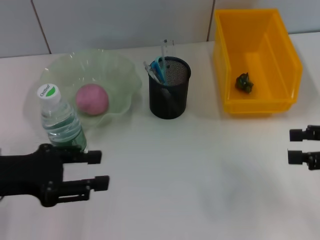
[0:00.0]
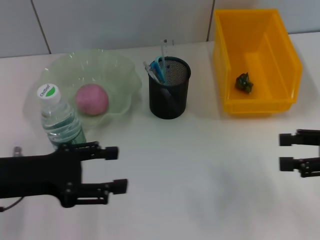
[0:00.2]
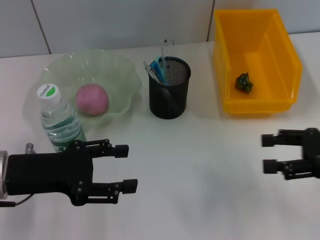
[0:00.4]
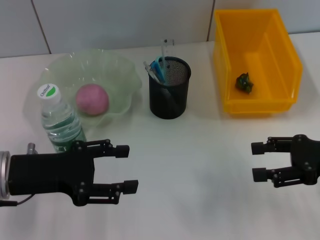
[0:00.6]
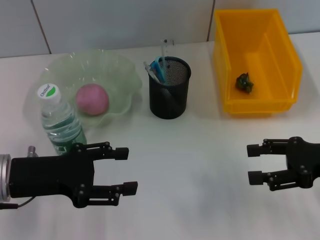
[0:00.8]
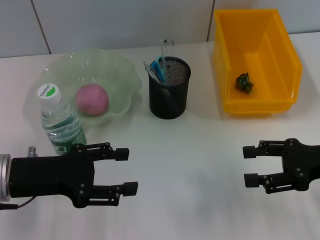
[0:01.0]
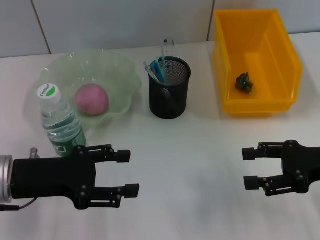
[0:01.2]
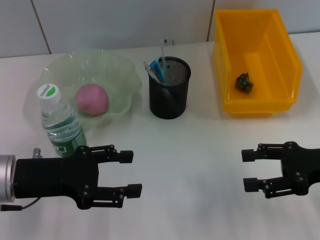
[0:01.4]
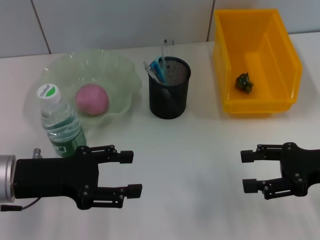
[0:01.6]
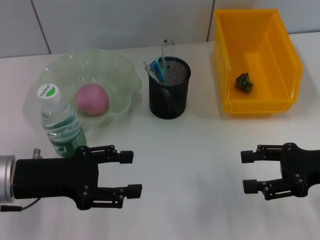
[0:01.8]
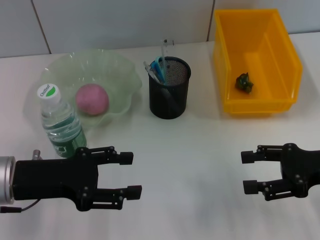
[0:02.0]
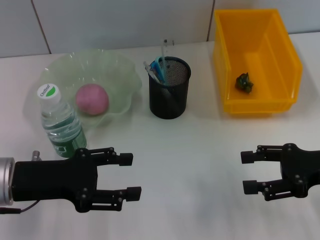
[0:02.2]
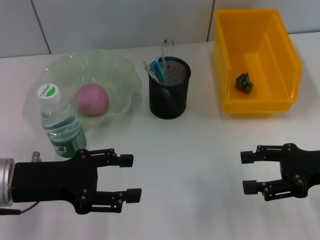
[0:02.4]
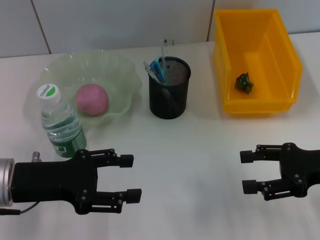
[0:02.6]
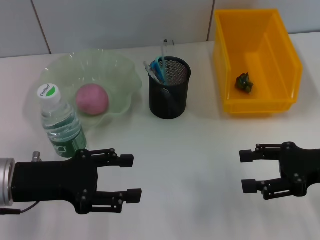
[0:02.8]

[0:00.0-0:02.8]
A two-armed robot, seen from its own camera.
0:00.0 to 0:01.4: The left gripper shifts by some 5 cm, and opens, while the right gripper goes approximately 5 cm to the left.
0:01.4 to 0:02.8: Both grippers stay about where they are.

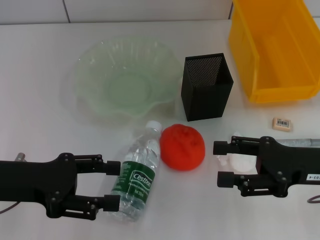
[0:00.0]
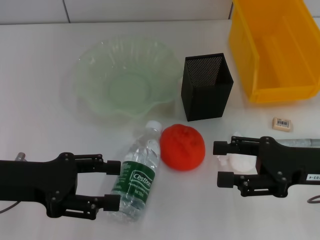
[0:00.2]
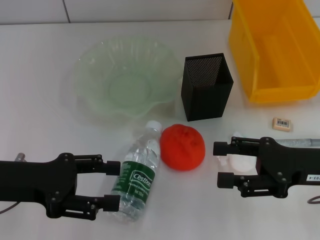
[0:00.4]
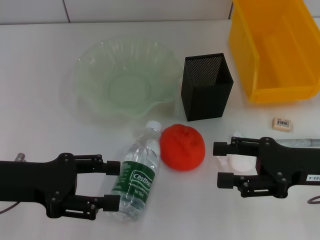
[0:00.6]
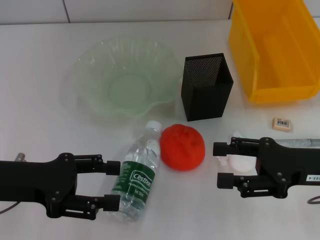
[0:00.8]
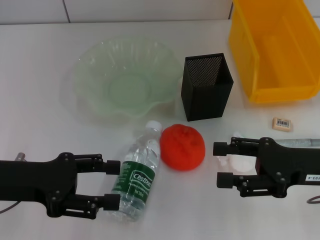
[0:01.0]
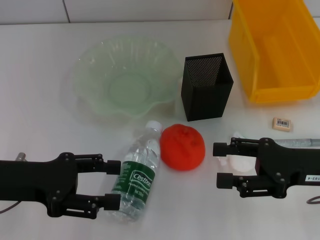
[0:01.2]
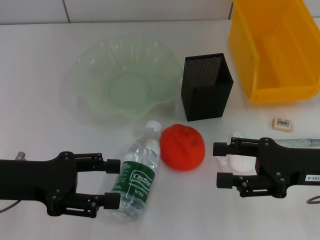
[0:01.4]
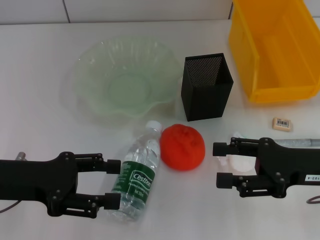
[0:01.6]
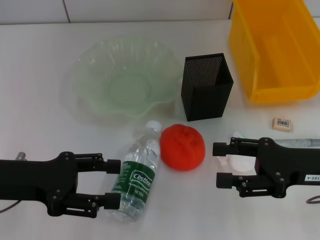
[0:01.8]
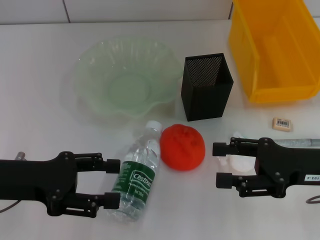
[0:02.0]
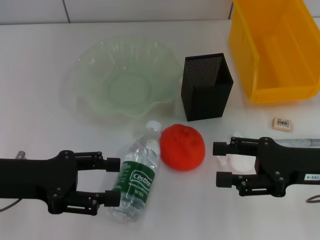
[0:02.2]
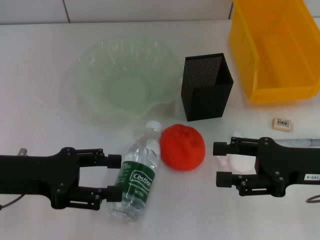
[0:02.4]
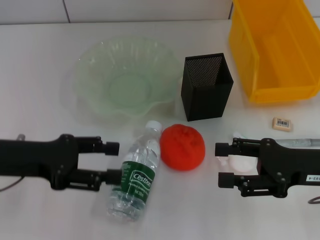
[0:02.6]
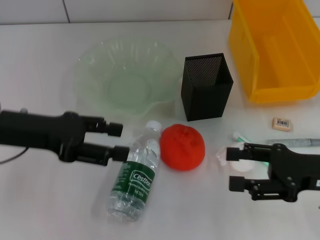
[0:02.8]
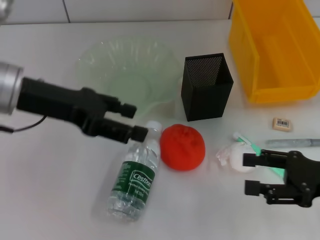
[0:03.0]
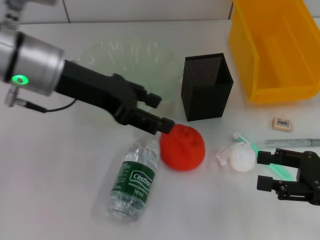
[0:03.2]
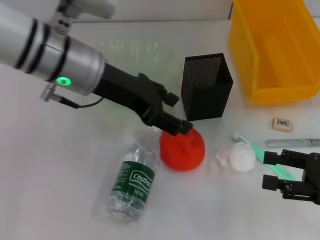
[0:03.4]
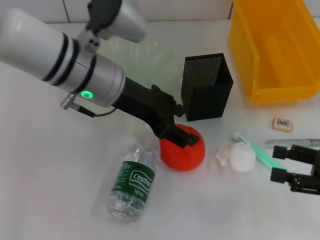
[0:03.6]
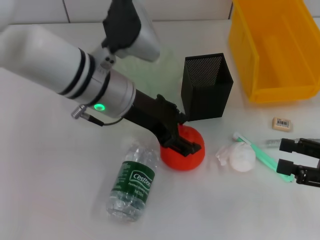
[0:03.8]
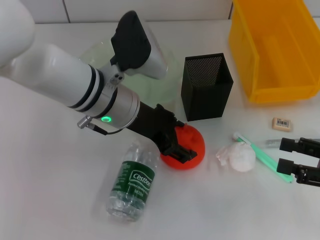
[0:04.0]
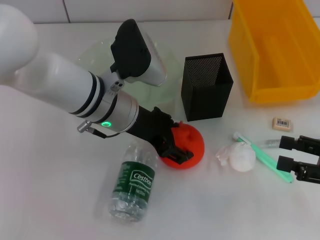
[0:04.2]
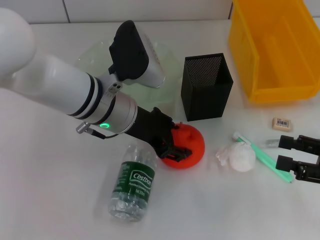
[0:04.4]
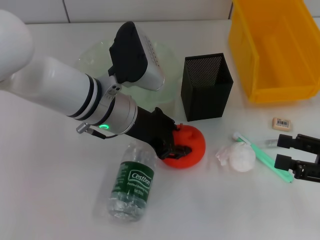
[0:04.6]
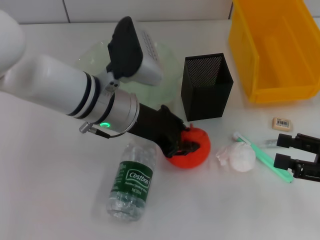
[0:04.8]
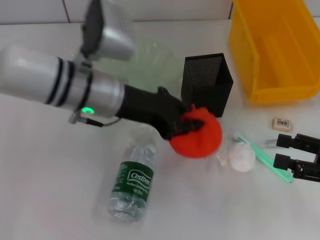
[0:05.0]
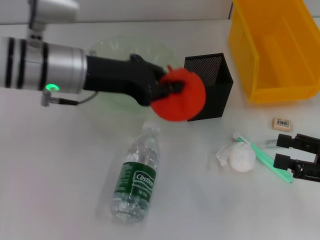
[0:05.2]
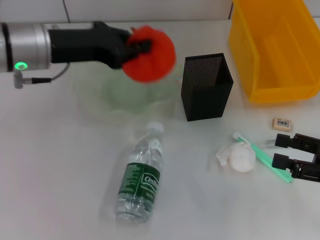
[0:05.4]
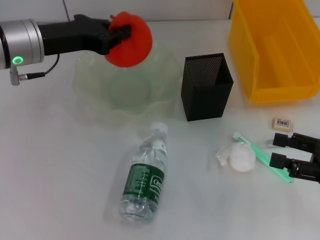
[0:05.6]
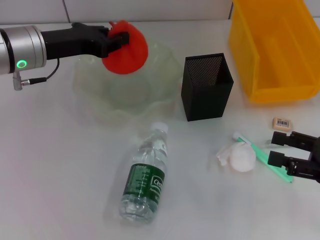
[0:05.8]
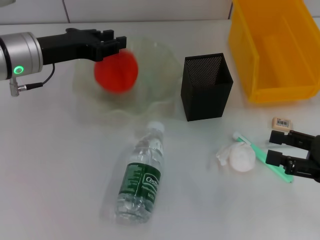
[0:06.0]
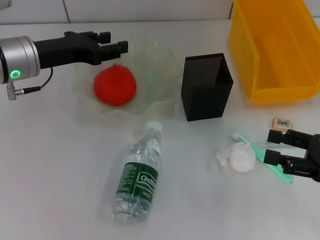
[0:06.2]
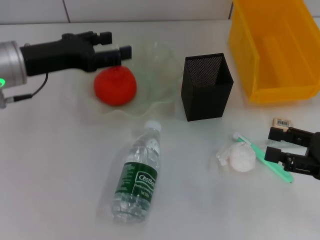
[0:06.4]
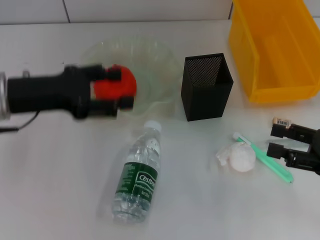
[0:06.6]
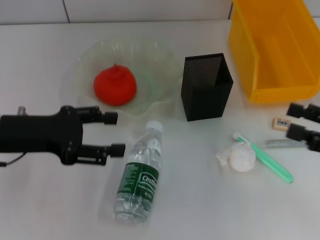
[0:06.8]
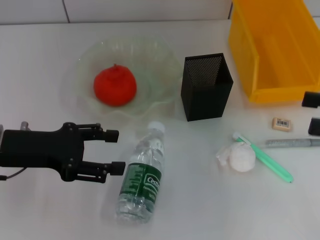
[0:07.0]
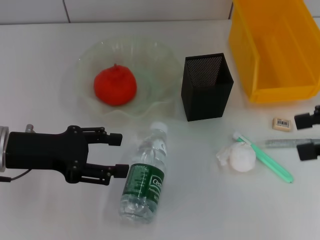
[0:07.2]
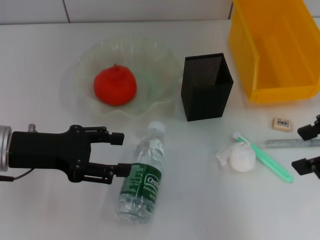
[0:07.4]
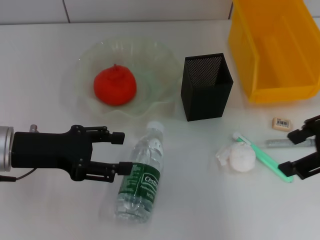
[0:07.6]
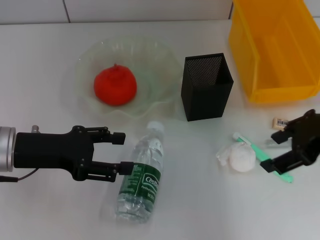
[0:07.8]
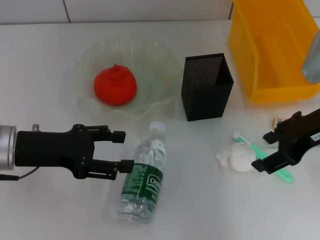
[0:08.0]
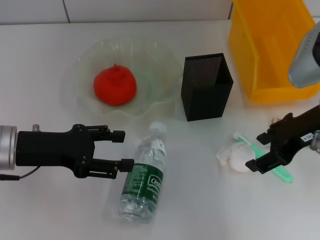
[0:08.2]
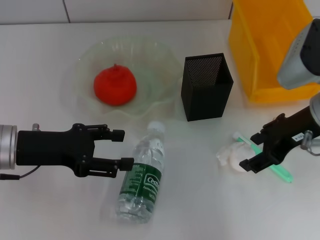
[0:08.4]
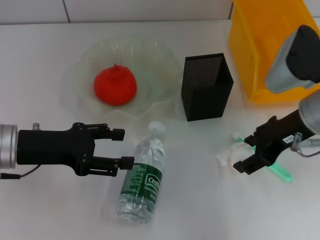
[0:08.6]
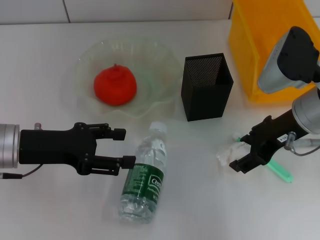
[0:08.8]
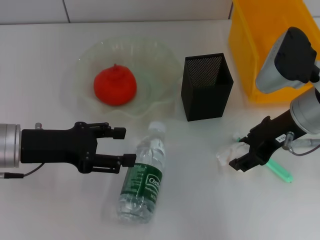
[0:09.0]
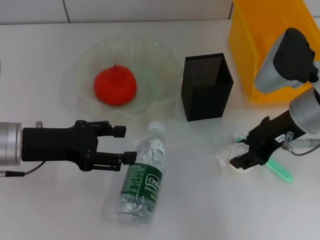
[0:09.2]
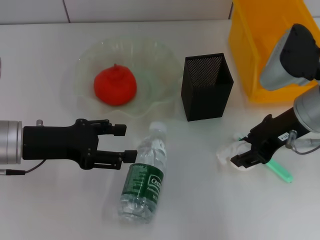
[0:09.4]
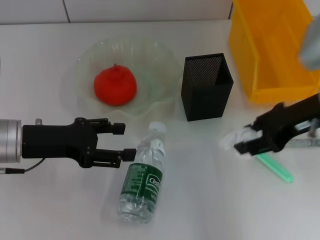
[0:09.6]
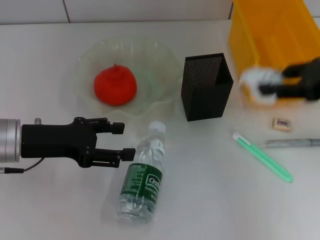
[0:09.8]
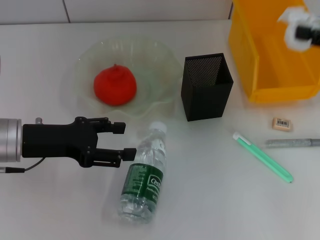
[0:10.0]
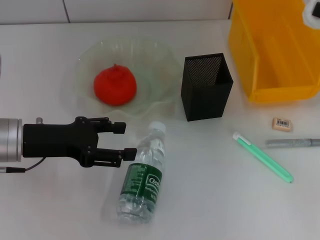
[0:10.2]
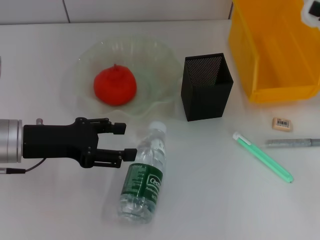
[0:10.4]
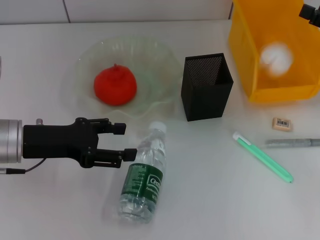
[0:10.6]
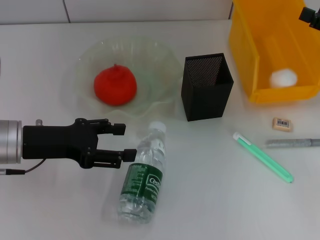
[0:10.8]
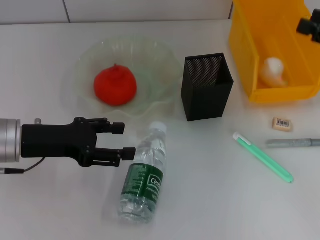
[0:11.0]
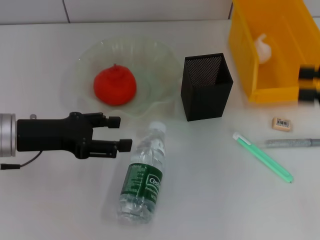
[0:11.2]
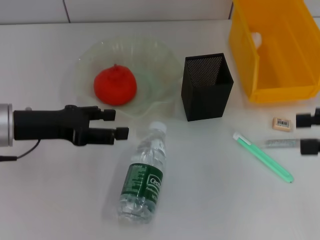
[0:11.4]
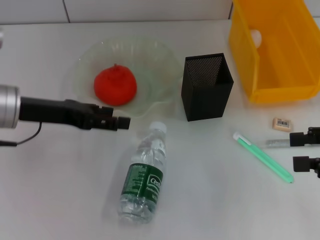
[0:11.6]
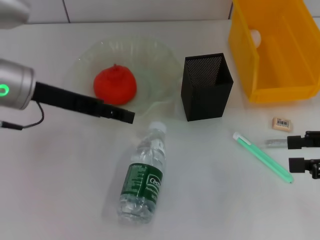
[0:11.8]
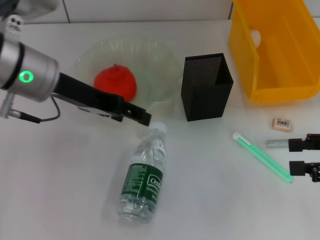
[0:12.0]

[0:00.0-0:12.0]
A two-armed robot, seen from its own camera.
Step, 0:00.0 to 0:04.4: Grab the orange with the left hand.
Step, 0:04.8 to 0:06.2: Place the orange into the fruit bowl with the left hand.
Step, 0:06.4 to 0:09.0: Grab the paper ball with the right hand.
Step, 0:09.2 to 0:10.8: Place the paper ball into the trash can with the right hand.
0:00.0 to 0:01.6: Both grippers stay about where they are.
0:01.6 to 0:03.0: The left gripper travels upward and forward by about 10 cm.
0:03.0 to 0:04.4: The left gripper shifts some 15 cm to the right and downward.
0:04.4 to 0:06.0: The left gripper moves to the left, roughly 15 cm, and closes.
0:06.0 to 0:07.6: The right gripper shifts roughly 20 cm upward and to the left. Meanwhile the left gripper is displaced backward by about 10 cm, and opens its fingers.
0:07.6 to 0:09.0: The right gripper travels downward, to the left and forward by some 15 cm.
0:09.0 to 0:10.4: The right gripper moves to the right, about 15 cm, and closes up.
0:10.4 to 0:12.0: The right gripper heads backward, covering approximately 10 cm. Meanwhile the left gripper heads upward, to the right and forward, covering about 10 cm.

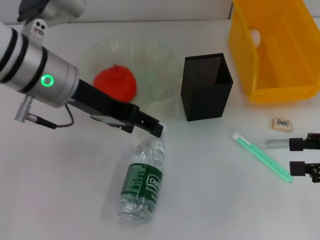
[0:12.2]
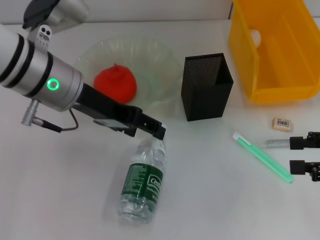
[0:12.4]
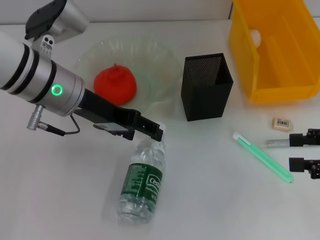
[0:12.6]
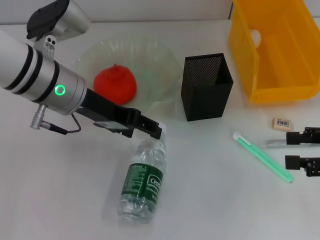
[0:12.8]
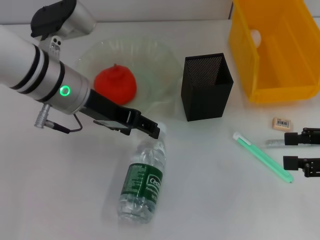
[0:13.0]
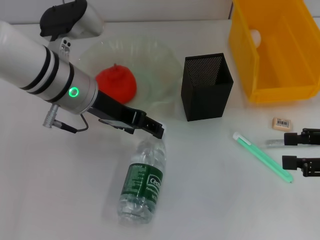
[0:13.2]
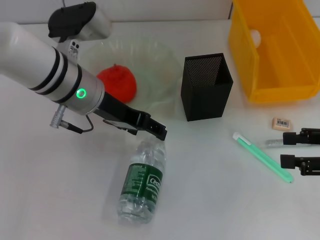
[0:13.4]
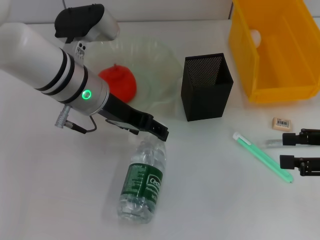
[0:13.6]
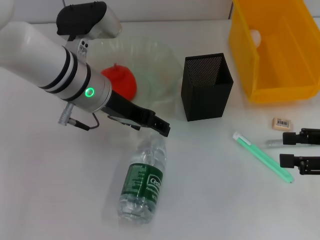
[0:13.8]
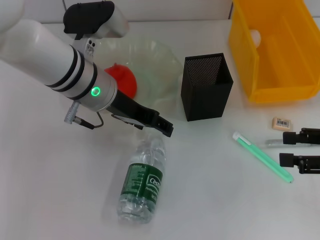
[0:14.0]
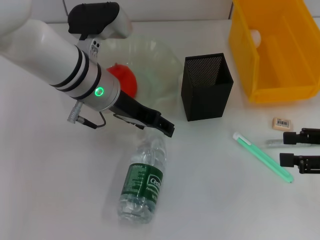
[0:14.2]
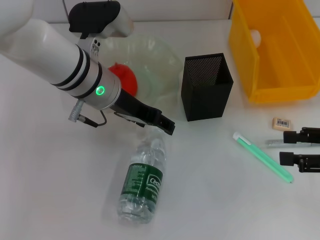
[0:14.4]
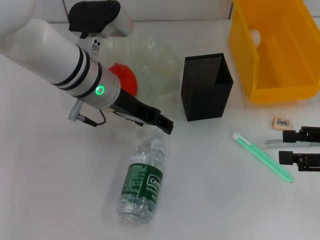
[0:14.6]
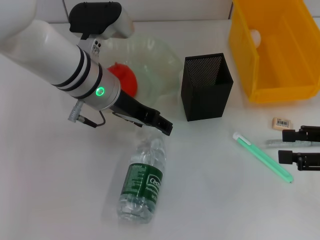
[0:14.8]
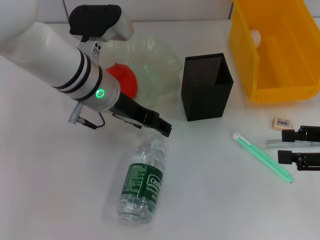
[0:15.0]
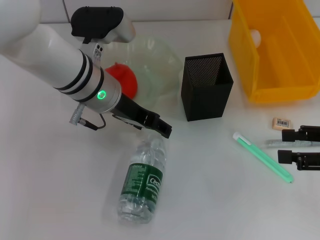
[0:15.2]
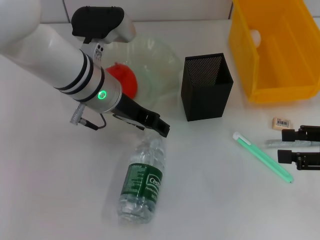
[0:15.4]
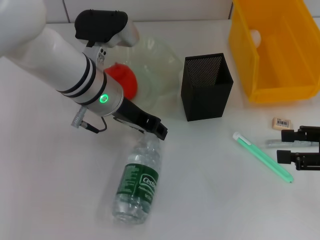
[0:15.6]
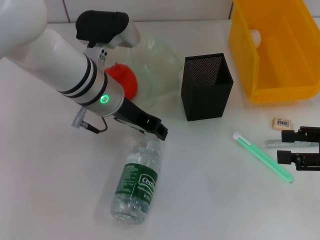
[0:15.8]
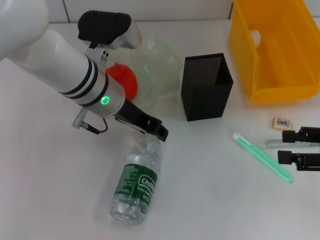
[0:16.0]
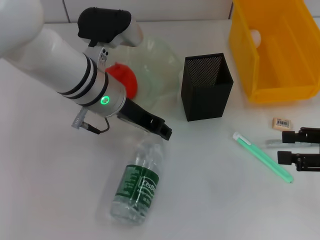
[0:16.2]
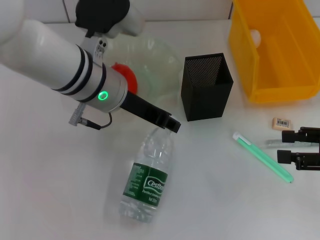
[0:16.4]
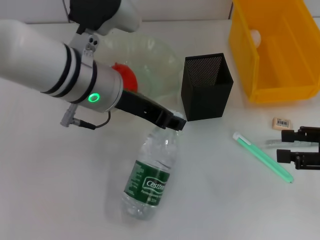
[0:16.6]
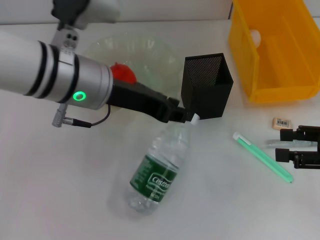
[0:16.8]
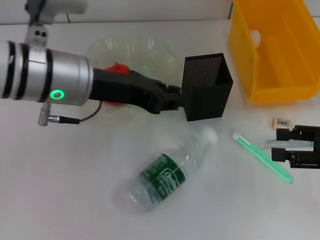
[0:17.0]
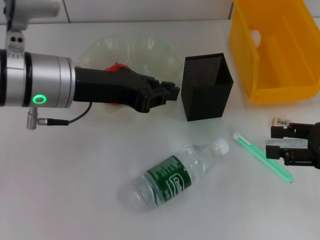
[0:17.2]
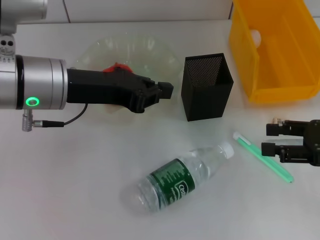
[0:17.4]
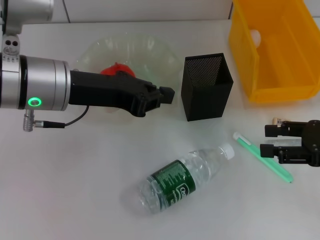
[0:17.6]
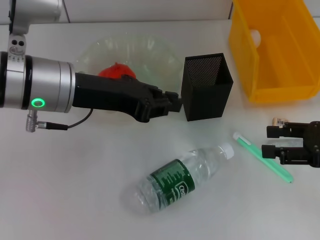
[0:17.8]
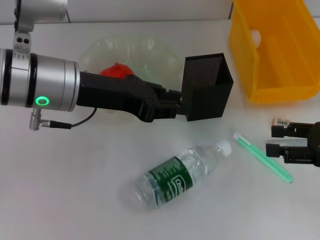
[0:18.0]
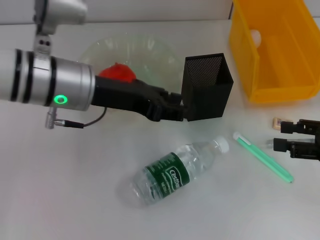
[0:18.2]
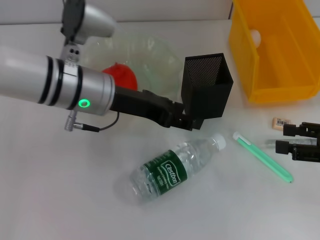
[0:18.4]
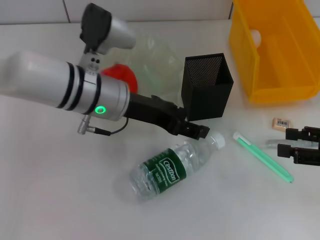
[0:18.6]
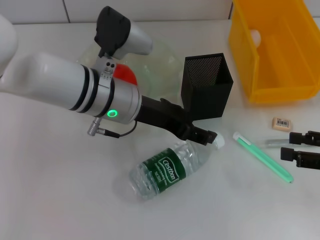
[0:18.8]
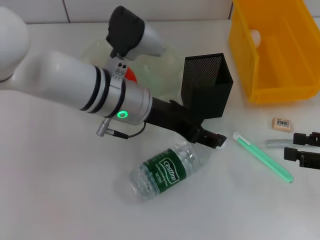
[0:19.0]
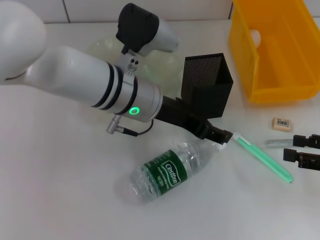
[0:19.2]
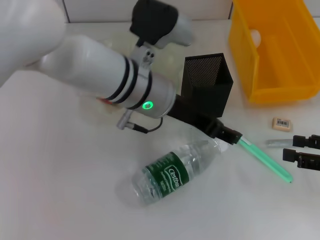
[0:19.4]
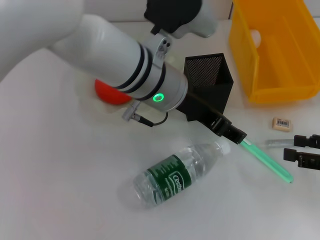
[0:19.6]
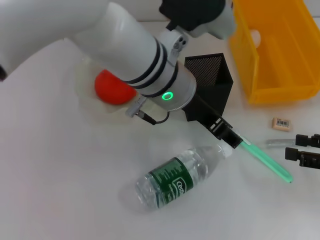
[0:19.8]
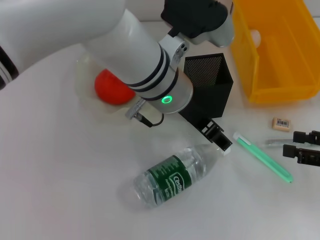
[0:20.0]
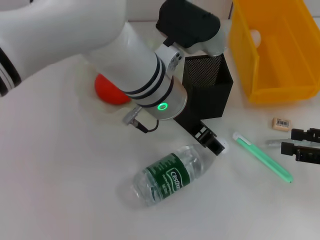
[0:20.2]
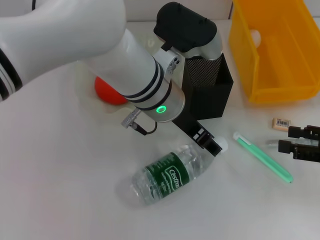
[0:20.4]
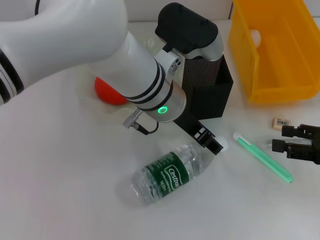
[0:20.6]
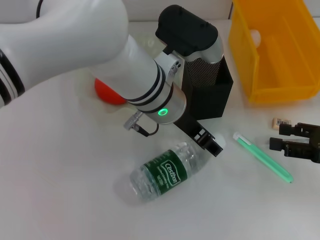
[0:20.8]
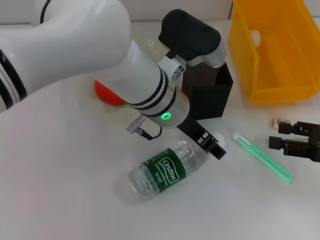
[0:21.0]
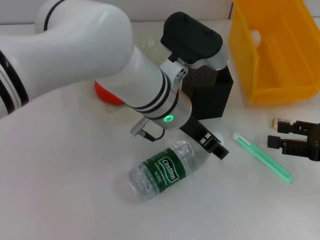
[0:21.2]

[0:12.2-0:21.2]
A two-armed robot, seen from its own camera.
0:12.2 to 0:13.8: The left gripper changes place by roughly 5 cm.
0:13.8 to 0:15.2: There are only small adjustments of the grippers.
0:15.2 to 0:16.6: The left gripper moves roughly 5 cm, and closes its fingers.
0:18.2 to 0:19.8: The left gripper travels to the right by approximately 15 cm, and opens up.
